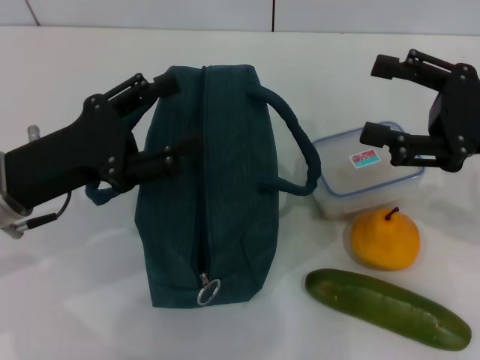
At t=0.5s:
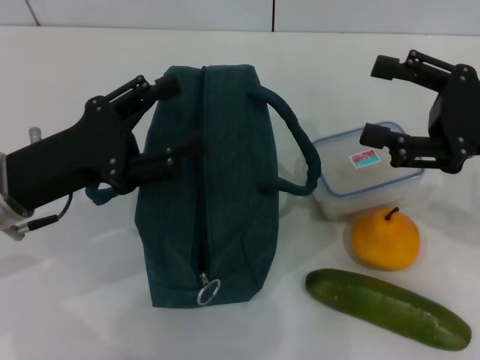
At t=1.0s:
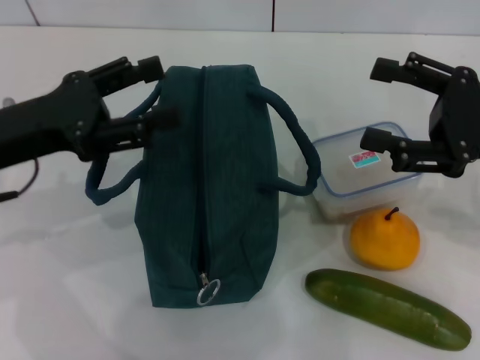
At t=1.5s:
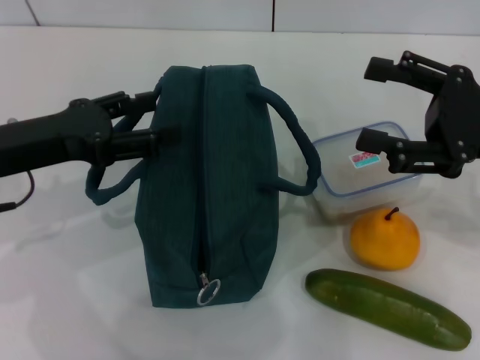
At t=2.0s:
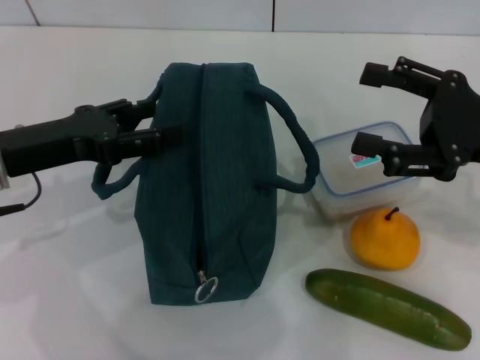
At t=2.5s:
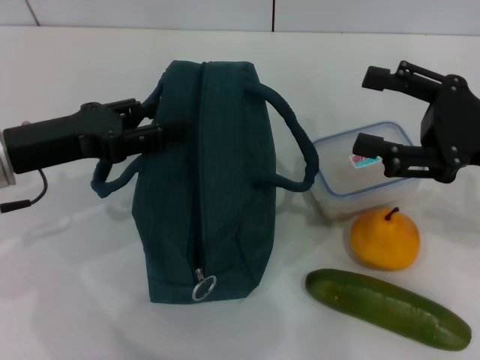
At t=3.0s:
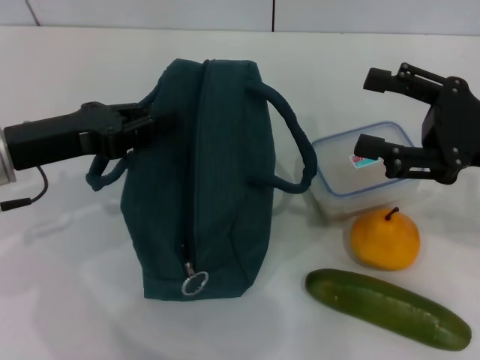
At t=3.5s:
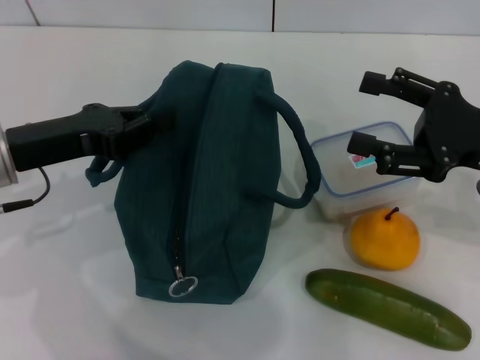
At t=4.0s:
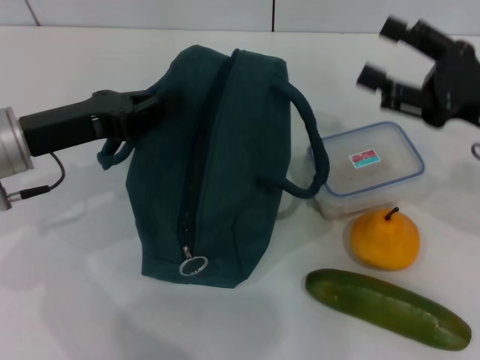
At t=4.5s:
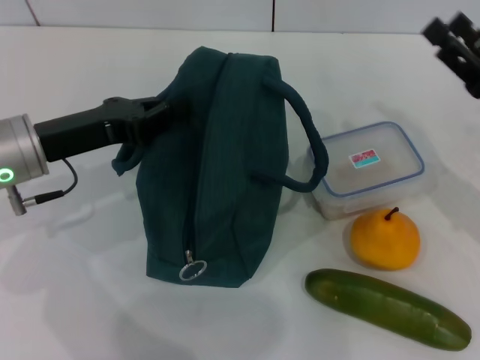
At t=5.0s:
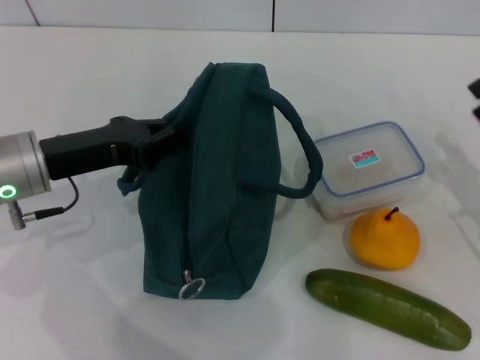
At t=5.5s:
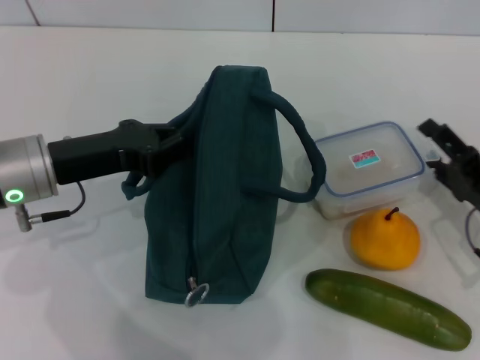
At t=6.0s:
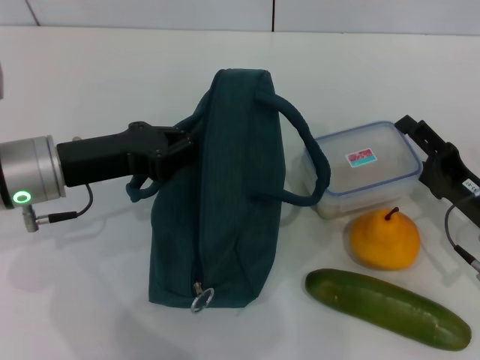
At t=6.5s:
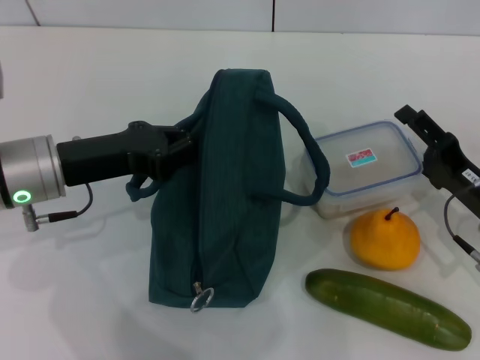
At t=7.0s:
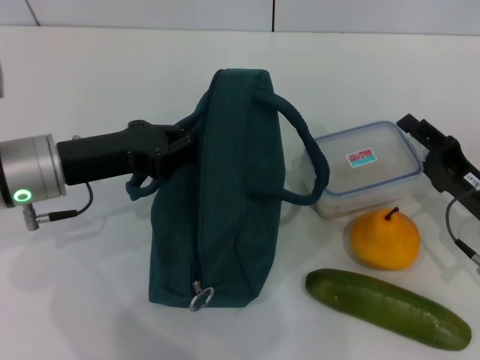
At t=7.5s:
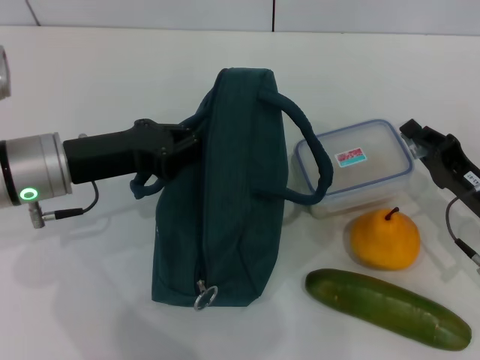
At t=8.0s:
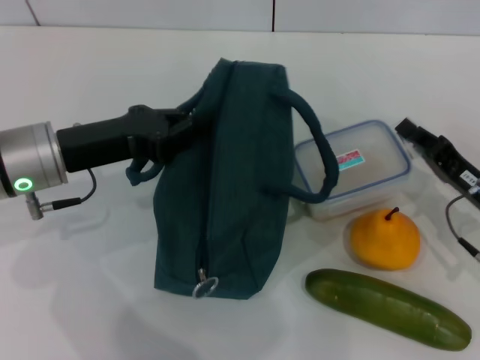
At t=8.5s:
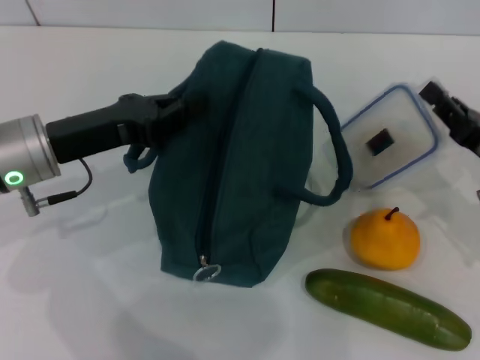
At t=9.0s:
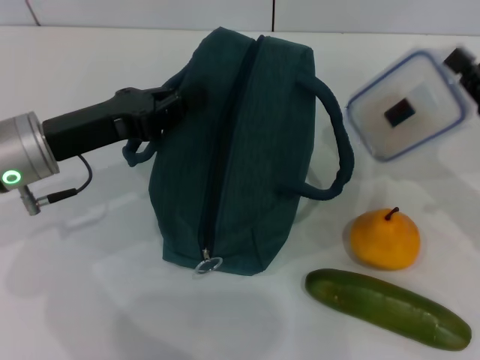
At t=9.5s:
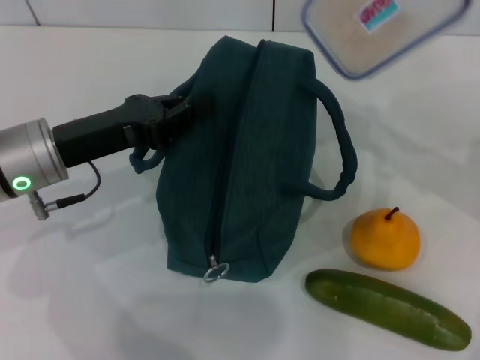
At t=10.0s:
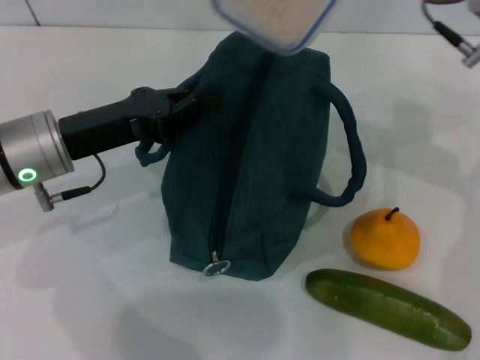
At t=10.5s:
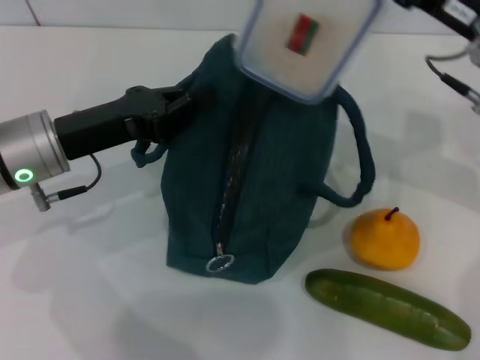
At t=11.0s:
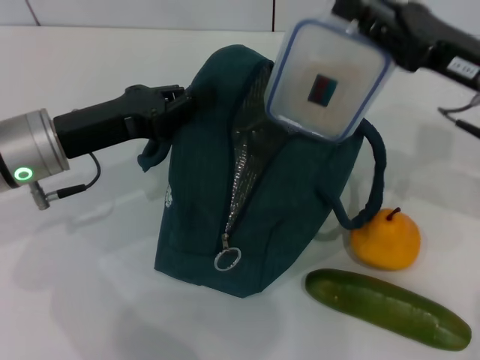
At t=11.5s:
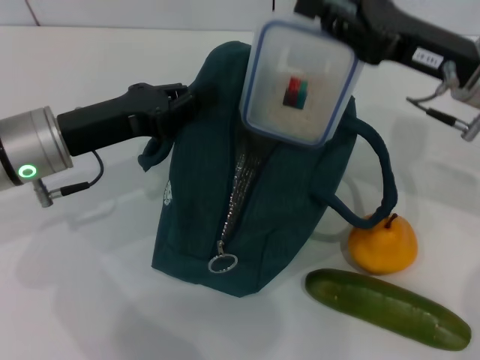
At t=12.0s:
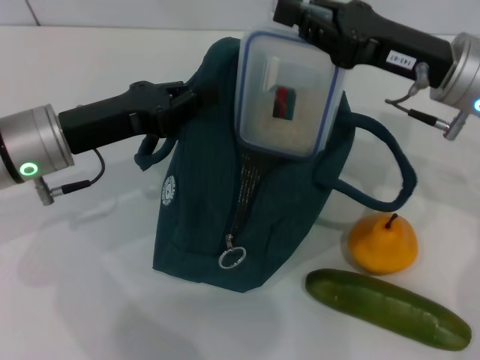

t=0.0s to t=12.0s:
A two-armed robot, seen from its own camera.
Step, t=0.0s to t=4.5s: Hold the lunch bag with your left hand.
Step, t=5.0s to t=7.5s: Pick up the lunch box with your right hand.
t=2.0s to t=4.0s: The left gripper closes its fingers.
t=4.0s to t=6.0s: The right gripper shifts approximately 10 cm downward.
t=6.0s to t=8.0s: The right gripper closes up.
t=8.0s to t=10.0s: The right gripper goes some 20 cm upward and forward.
t=10.0s to t=12.0s: The right gripper moves downward, some 5 cm.

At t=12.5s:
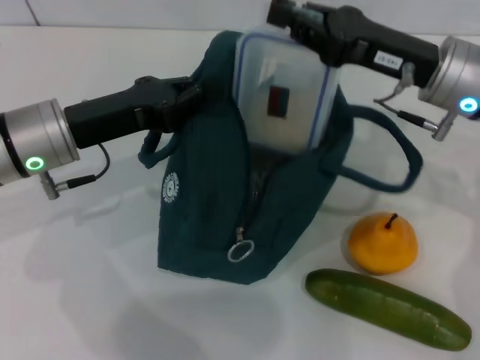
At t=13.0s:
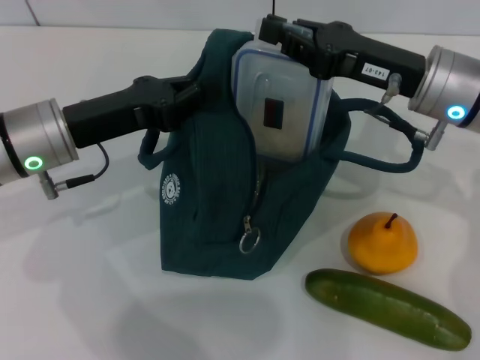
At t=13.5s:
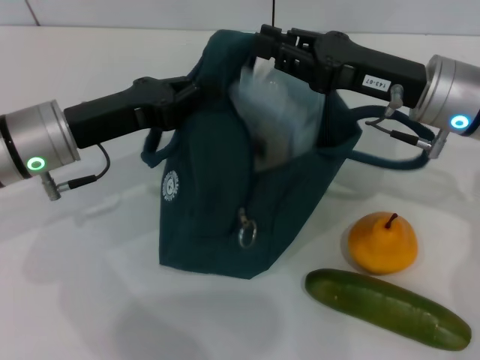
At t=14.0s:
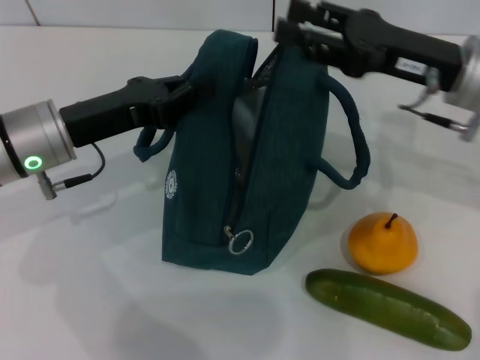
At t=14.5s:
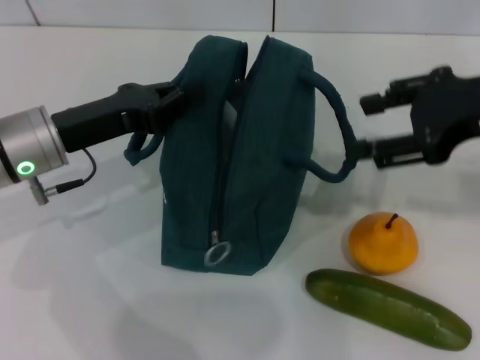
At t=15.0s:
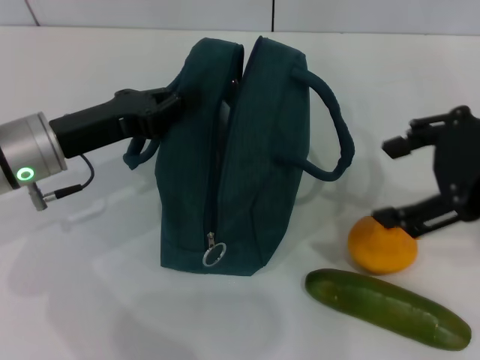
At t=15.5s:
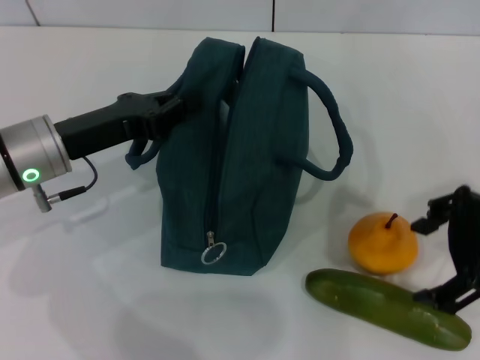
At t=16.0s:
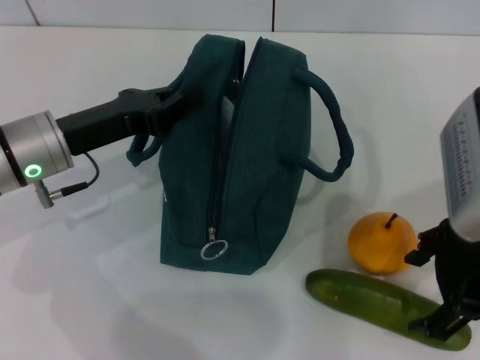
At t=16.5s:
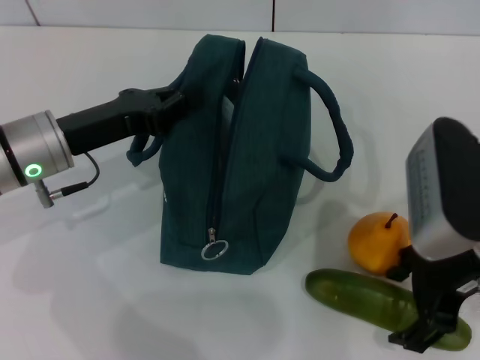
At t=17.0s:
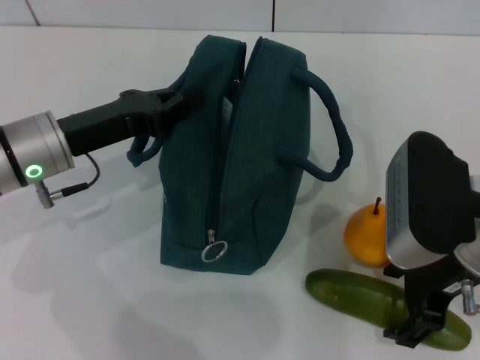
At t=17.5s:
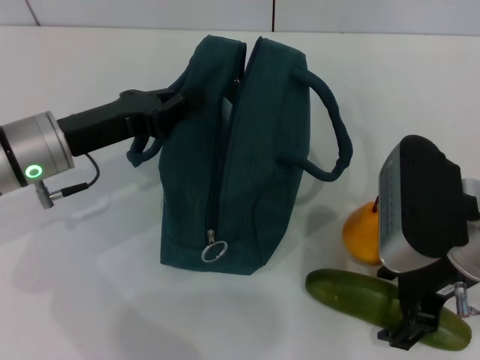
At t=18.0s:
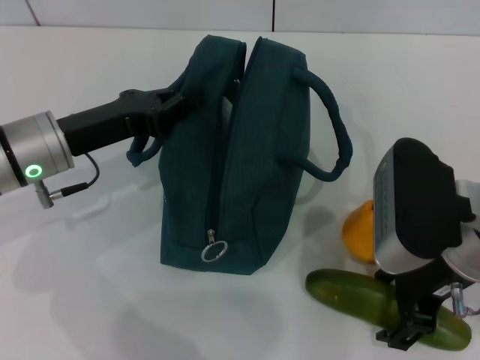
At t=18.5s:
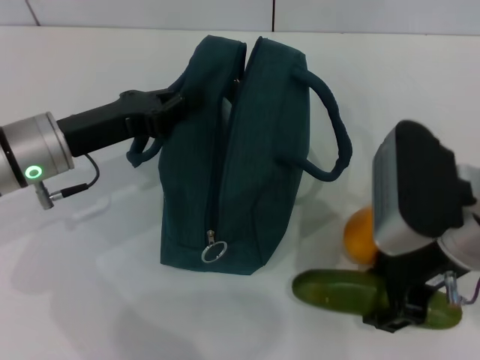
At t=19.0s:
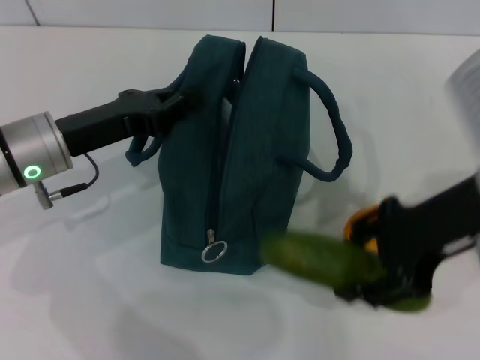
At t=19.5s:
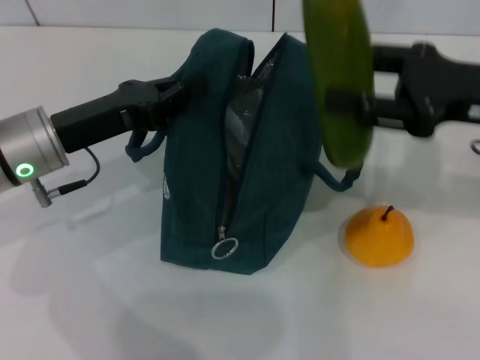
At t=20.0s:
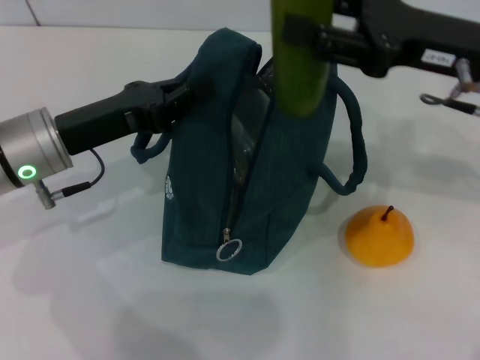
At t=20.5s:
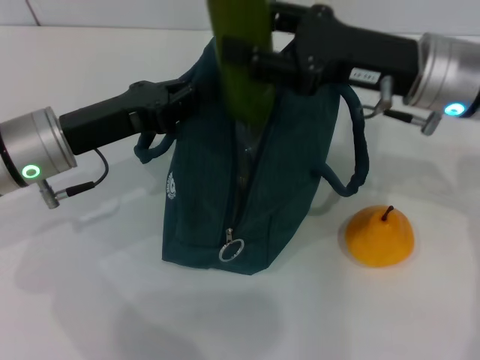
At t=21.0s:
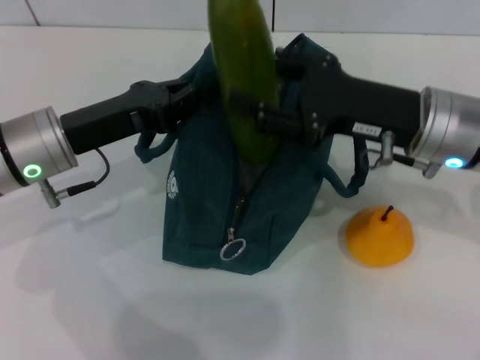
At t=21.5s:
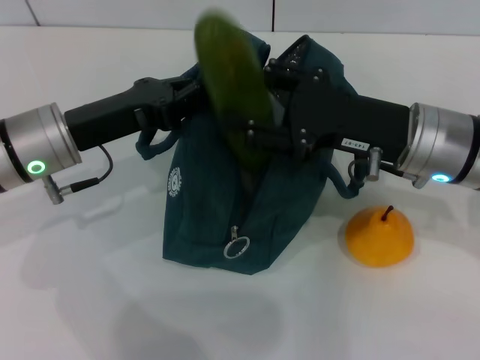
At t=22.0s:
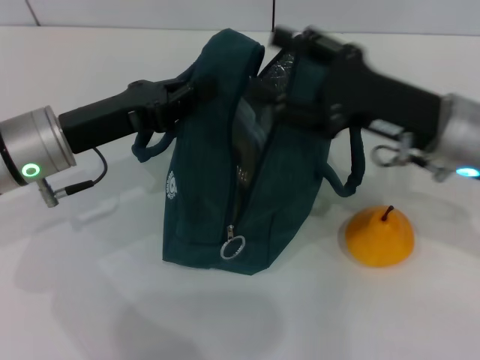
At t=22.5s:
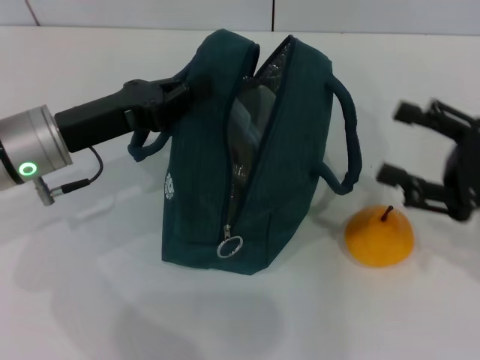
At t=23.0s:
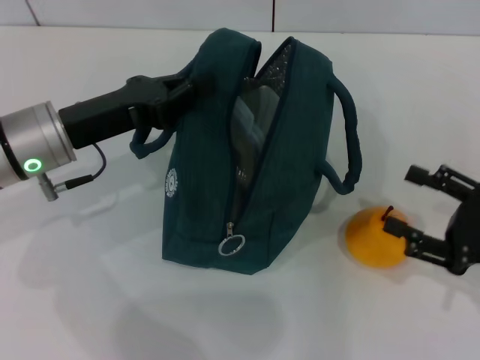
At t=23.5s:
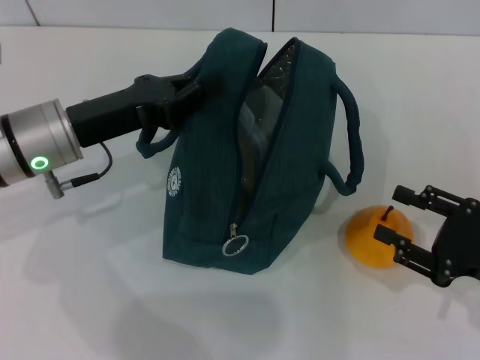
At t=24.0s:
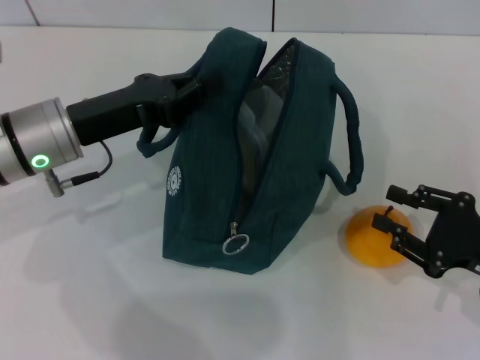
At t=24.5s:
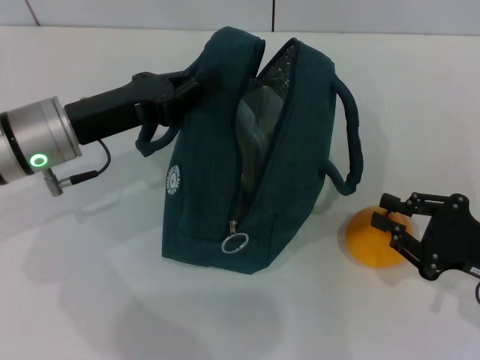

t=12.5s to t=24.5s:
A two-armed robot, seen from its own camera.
Step, t=14.0s to t=18.0s: Pick up the cucumber with your right hand.
Step, t=18.5s to t=21.5s: Put the cucumber into the lunch bag with your right hand.
t=12.5s to t=14.5s: The right gripper heads upward, backward and to the right, covering some 10 cm, and opens its fingers.
t=14.5s to t=16.5s: The right gripper shifts approximately 10 cm downward and to the left.
t=16.5s to t=18.5s: The grippers stay close to where they were, moving slightly.
t=18.5s to t=20.5s: The right gripper moves forward, approximately 10 cm.
t=20.5s to t=22.5s: The right gripper is displaced to the right, backward and downward by about 15 cm.
t=22.5s to t=24.5s: The right gripper goes about 5 cm downward, and closes up.

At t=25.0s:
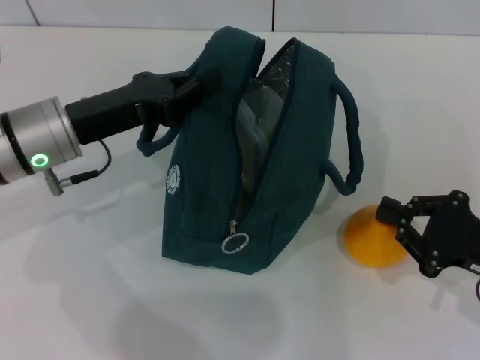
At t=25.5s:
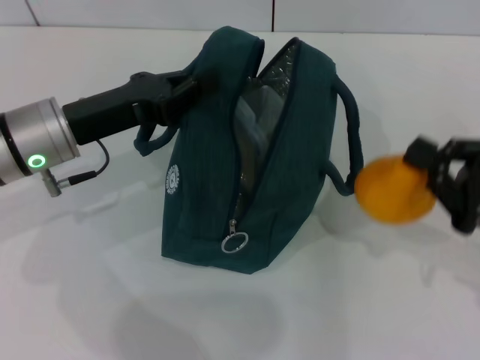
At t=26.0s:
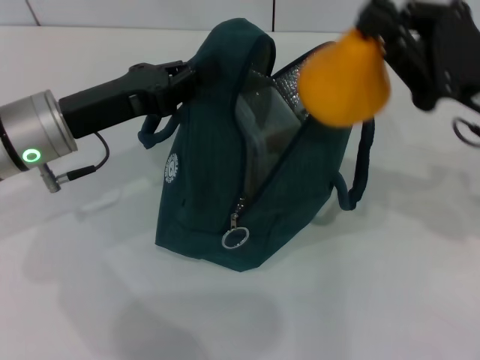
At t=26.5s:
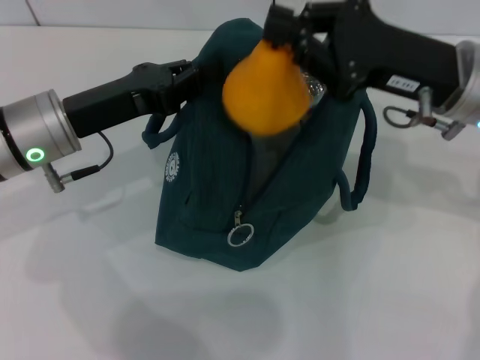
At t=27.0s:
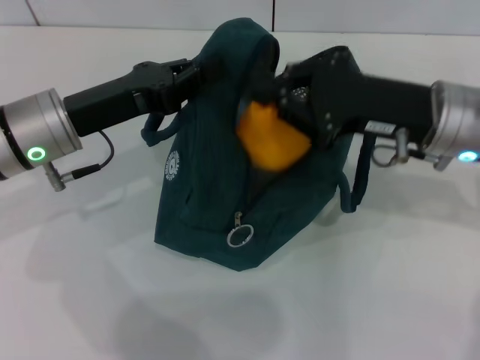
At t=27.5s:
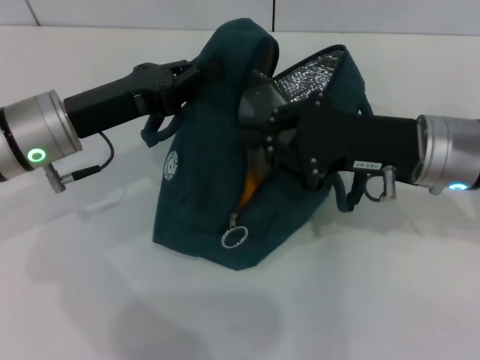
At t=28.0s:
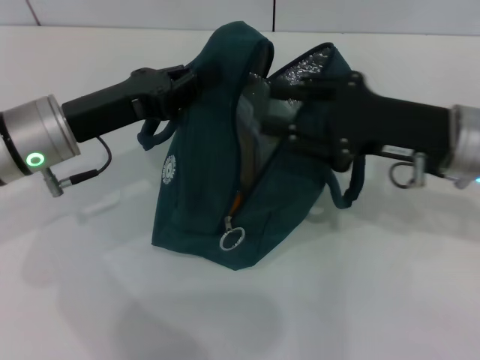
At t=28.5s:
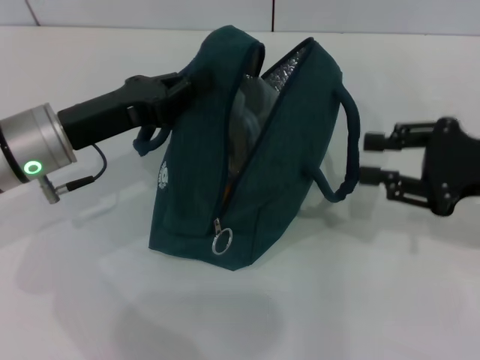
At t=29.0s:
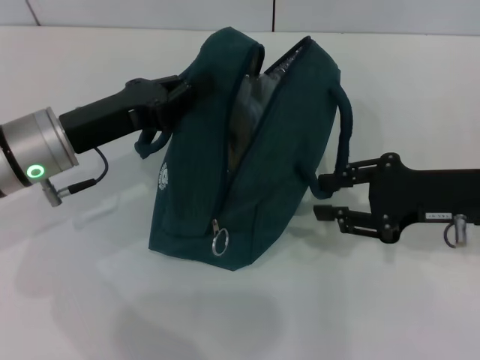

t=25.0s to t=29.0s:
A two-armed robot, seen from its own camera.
t=25.0s to t=27.0s: The right gripper moves to the left, upward and forward, about 20 cm.
t=27.0s to t=29.0s: The right gripper is displaced to the right by about 5 cm, and opens its fingers.
